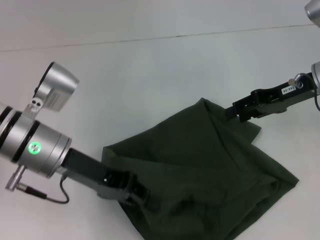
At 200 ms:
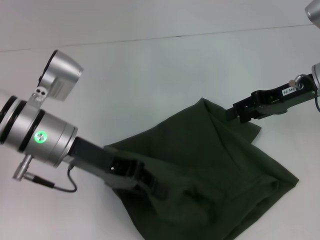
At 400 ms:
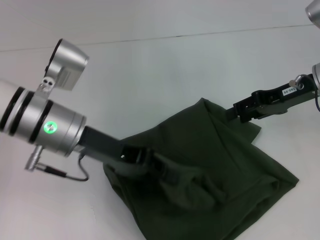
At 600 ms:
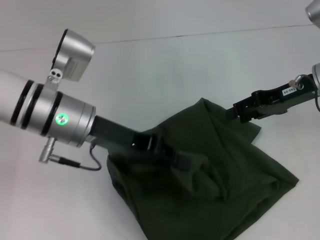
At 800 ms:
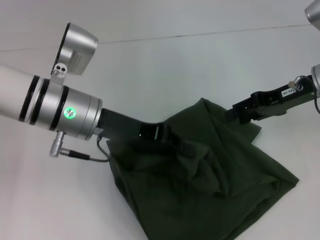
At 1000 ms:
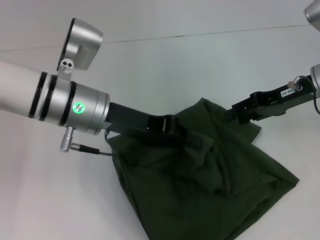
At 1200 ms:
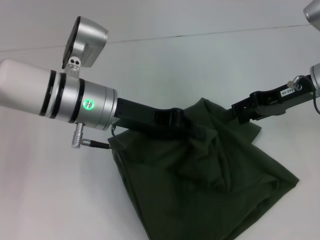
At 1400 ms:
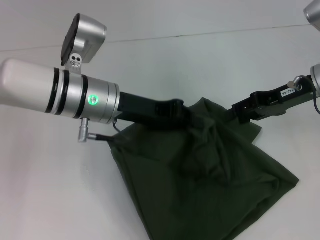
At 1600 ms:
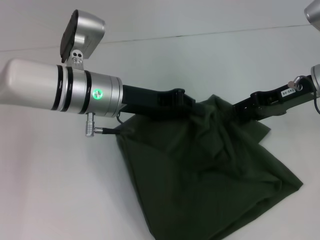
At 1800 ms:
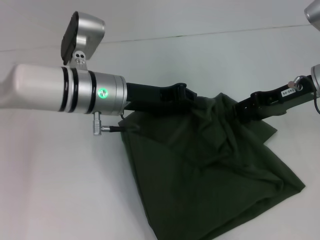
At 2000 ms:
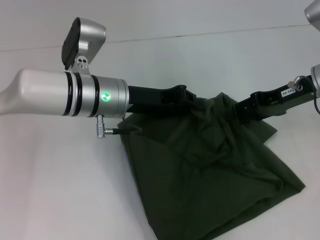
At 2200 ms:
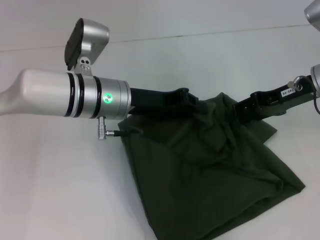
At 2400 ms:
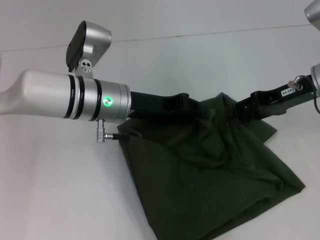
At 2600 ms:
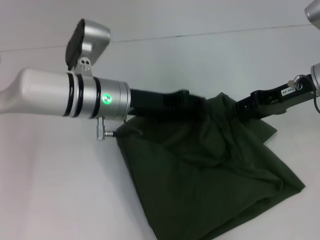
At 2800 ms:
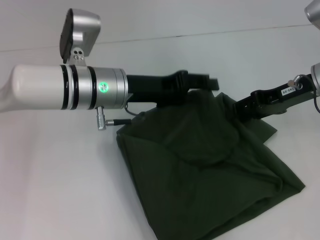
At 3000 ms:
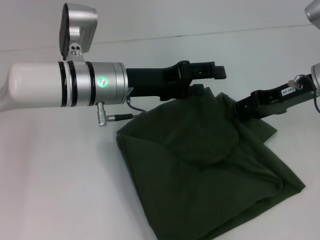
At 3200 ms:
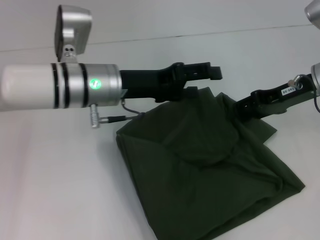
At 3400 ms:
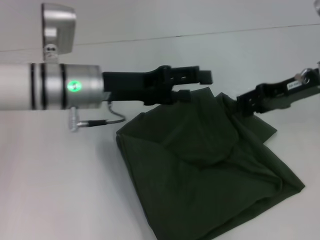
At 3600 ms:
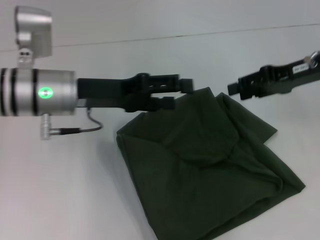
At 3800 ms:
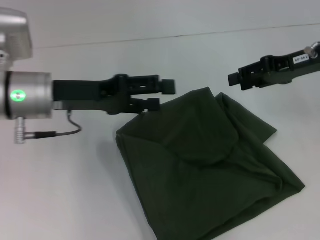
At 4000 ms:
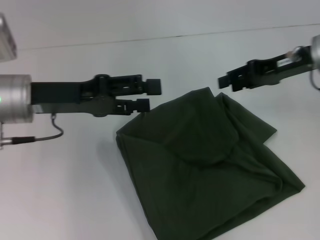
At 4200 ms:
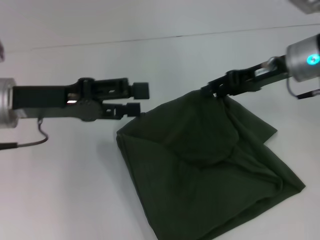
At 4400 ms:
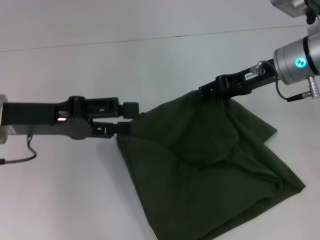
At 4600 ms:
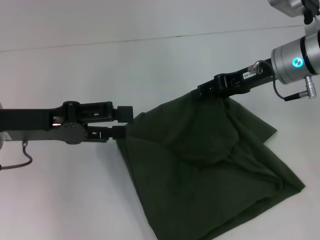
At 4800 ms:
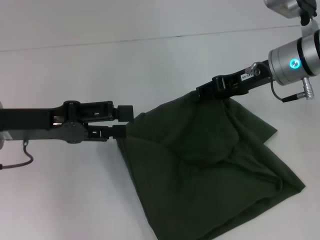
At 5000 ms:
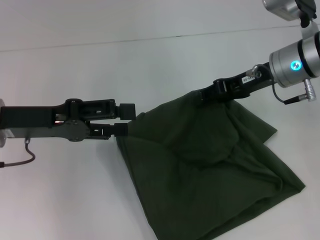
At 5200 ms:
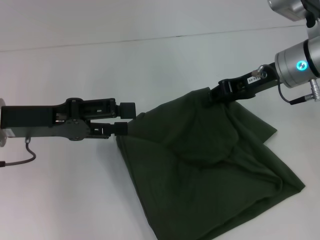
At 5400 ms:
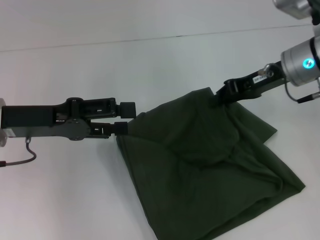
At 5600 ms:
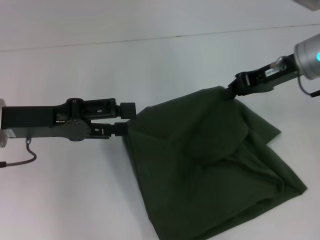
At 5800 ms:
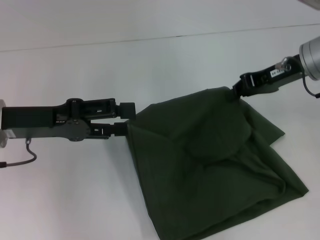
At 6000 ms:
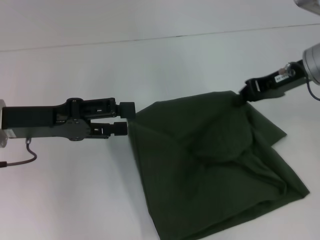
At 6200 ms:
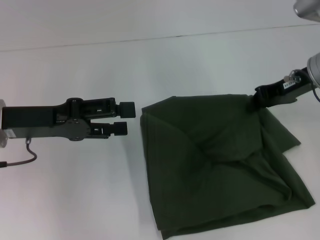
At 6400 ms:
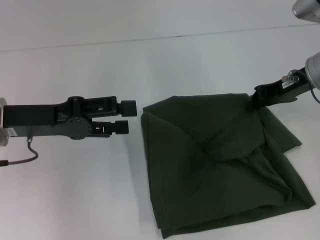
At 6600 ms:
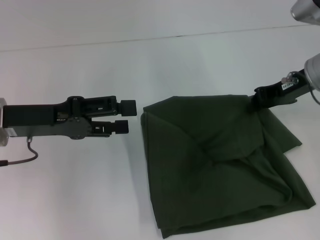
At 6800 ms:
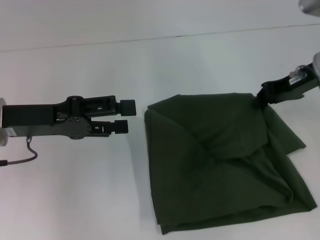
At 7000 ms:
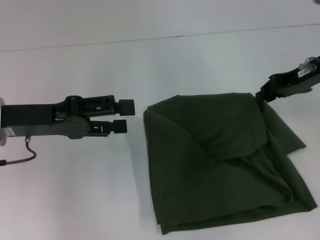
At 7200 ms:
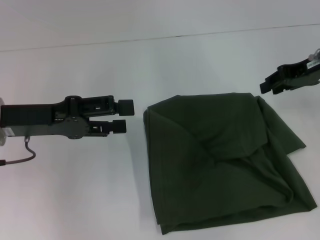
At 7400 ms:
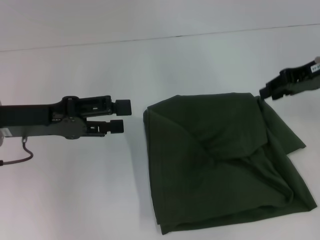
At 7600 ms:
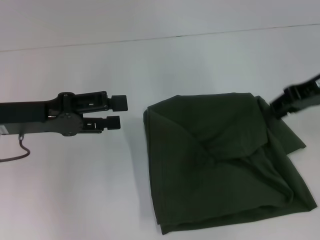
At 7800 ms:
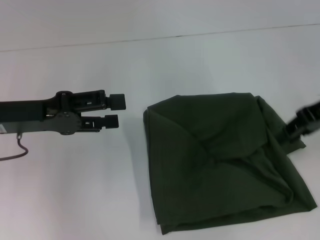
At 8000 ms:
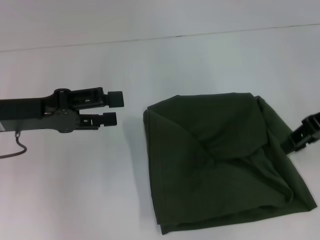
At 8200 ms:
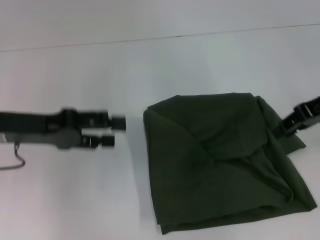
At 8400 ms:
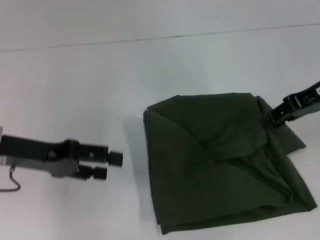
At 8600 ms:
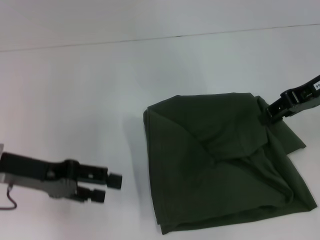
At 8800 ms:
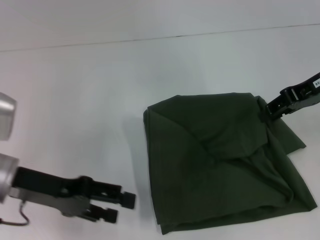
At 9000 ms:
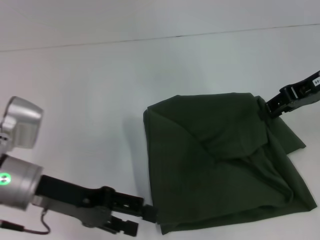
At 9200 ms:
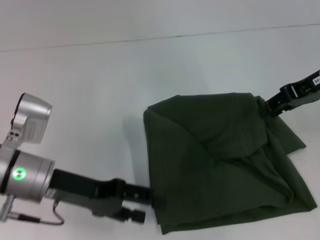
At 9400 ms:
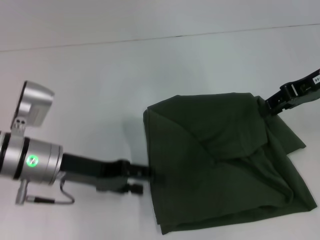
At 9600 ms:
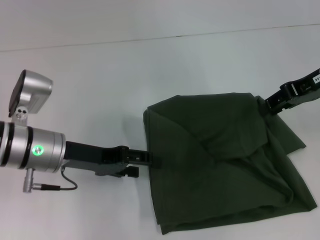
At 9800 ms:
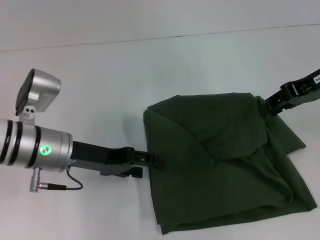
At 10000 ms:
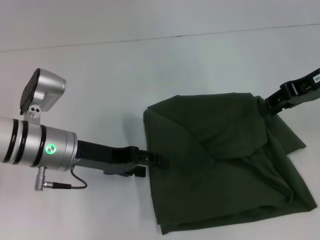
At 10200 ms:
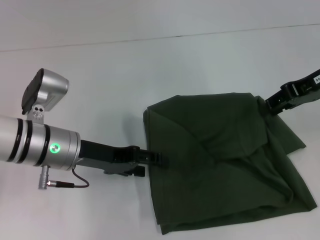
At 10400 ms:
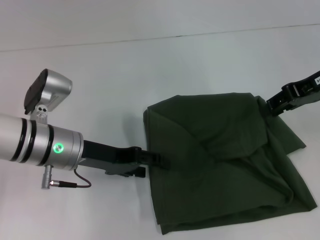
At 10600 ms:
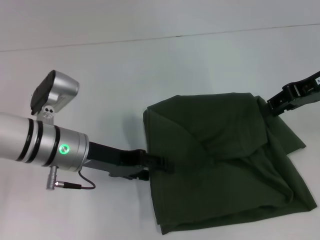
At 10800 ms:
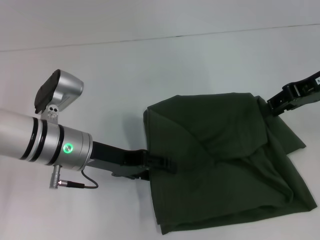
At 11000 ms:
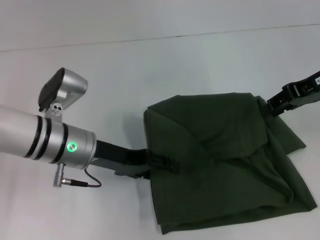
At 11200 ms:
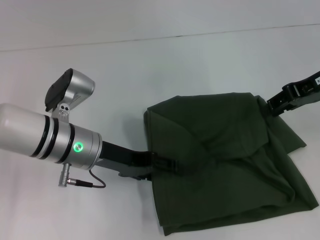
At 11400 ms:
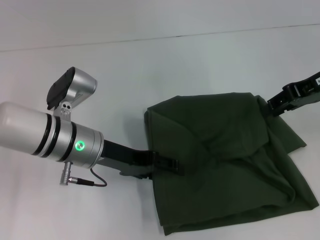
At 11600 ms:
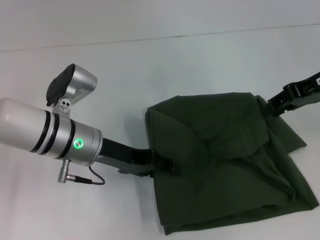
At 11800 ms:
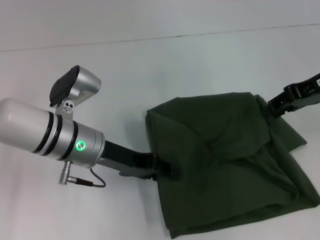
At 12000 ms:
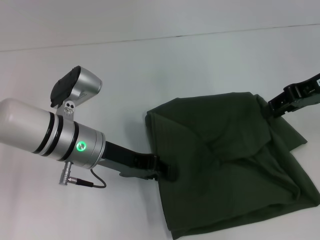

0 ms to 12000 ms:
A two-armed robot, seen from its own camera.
Step, 0 ms to 2800 ms: Fold the clothes with your left hand.
0 ms to 1600 ms: The left gripper travels to the right and forward by approximately 10 cm.
1600 ms to 3000 ms: The left gripper opens its fingers.
3000 ms to 4400 ms: The right gripper moves to the left, roughly 5 cm, while the left gripper is displaced to the left by roughly 15 cm.
4400 ms to 6000 ms: The right gripper closes up.
6000 ms to 7600 ms: The right gripper ends up approximately 5 cm from where it was, and opens.
7600 ms to 9000 ms: The left gripper changes place by roughly 5 cm.
9000 ms to 10400 ms: The left gripper changes place by some 5 cm.
10400 ms to 12000 ms: The left gripper closes.

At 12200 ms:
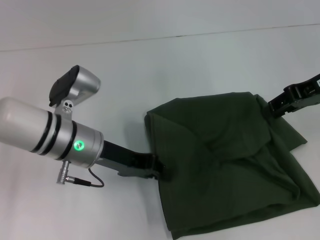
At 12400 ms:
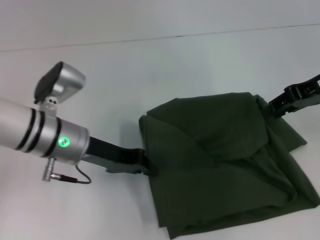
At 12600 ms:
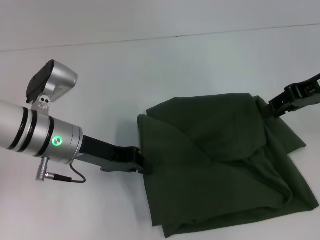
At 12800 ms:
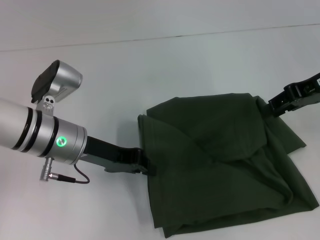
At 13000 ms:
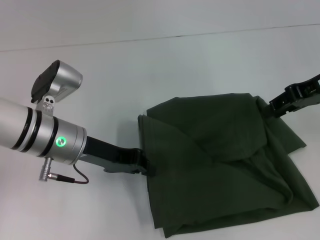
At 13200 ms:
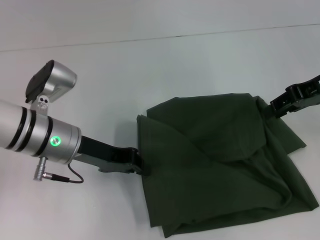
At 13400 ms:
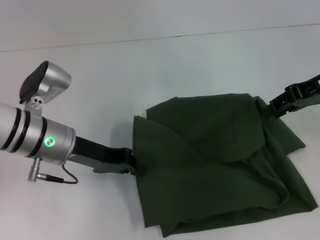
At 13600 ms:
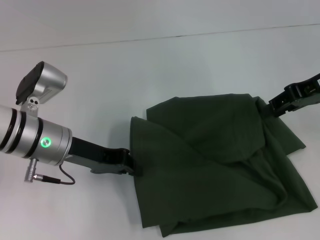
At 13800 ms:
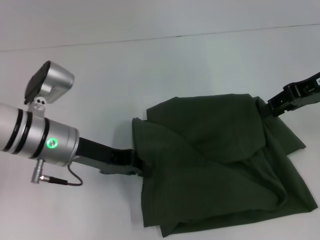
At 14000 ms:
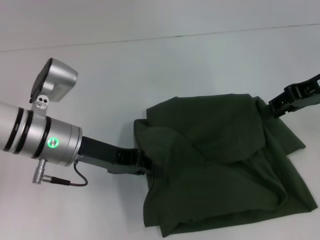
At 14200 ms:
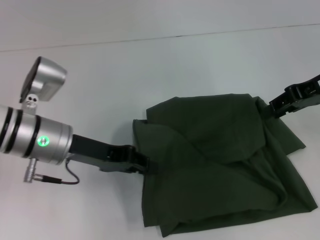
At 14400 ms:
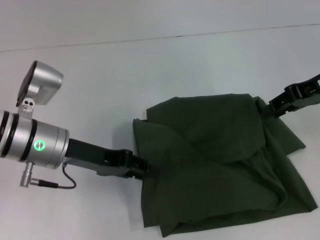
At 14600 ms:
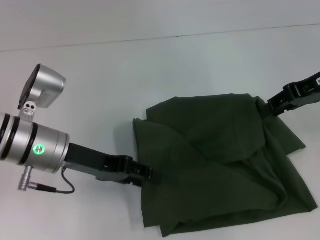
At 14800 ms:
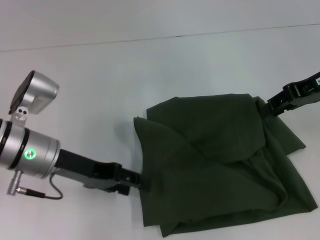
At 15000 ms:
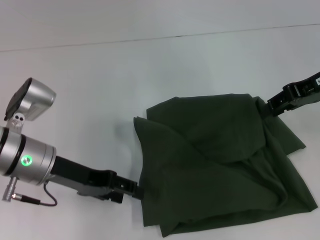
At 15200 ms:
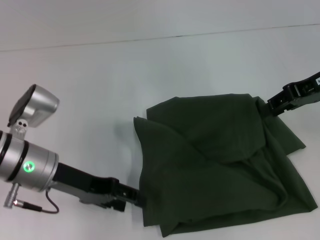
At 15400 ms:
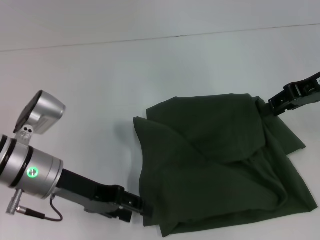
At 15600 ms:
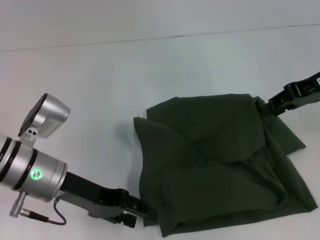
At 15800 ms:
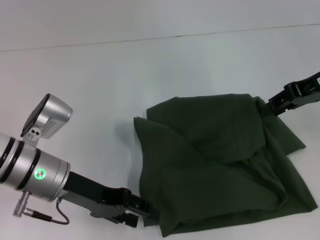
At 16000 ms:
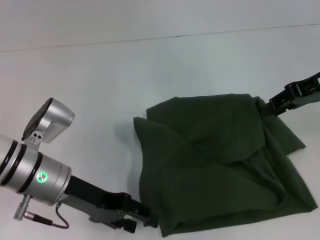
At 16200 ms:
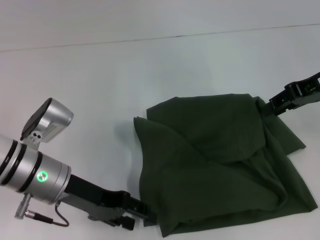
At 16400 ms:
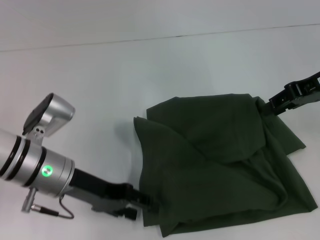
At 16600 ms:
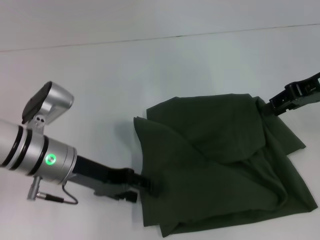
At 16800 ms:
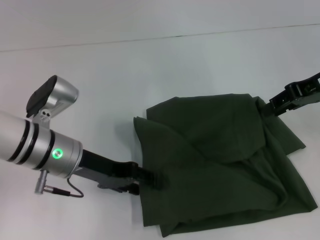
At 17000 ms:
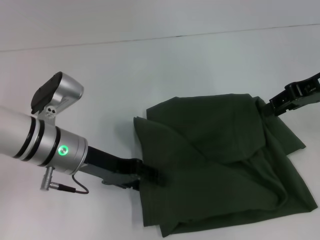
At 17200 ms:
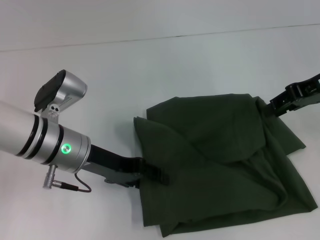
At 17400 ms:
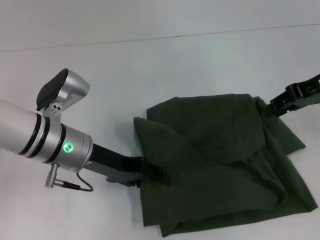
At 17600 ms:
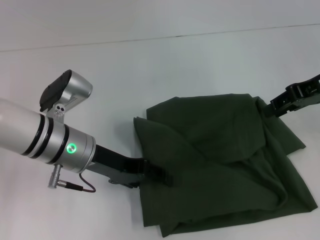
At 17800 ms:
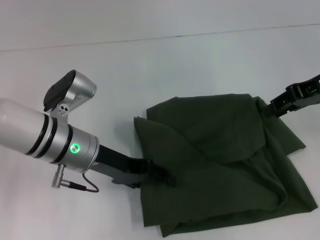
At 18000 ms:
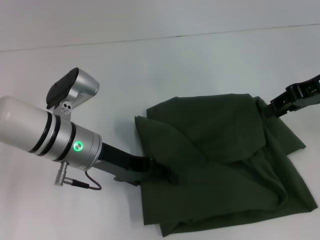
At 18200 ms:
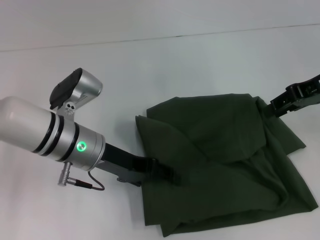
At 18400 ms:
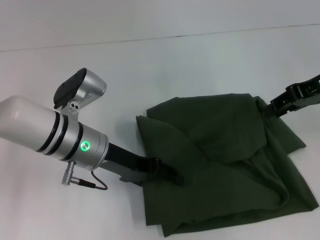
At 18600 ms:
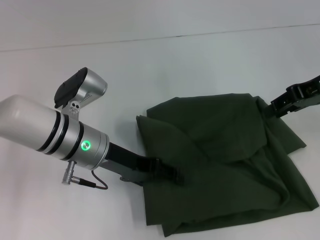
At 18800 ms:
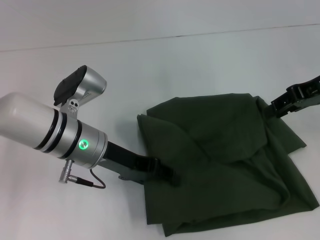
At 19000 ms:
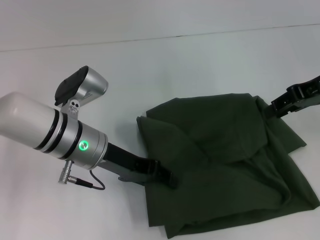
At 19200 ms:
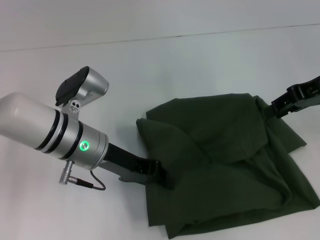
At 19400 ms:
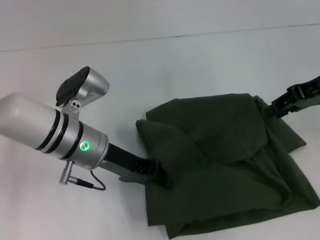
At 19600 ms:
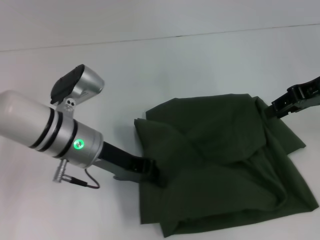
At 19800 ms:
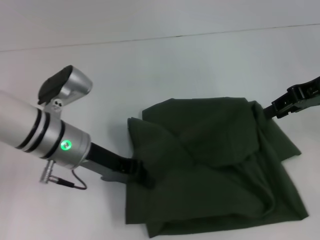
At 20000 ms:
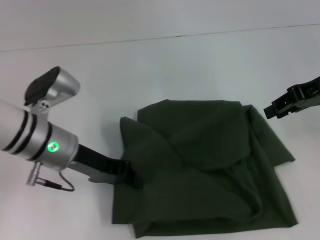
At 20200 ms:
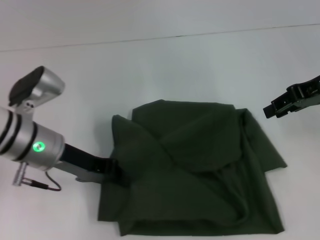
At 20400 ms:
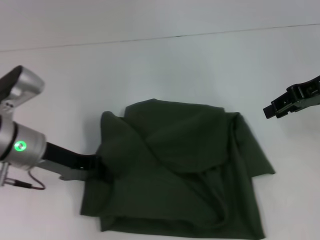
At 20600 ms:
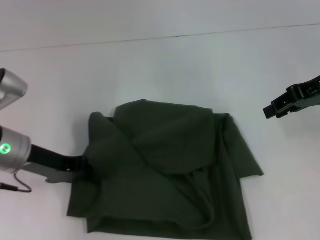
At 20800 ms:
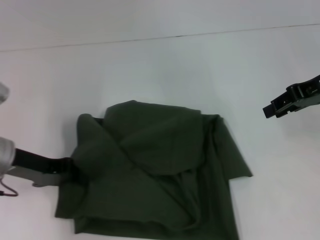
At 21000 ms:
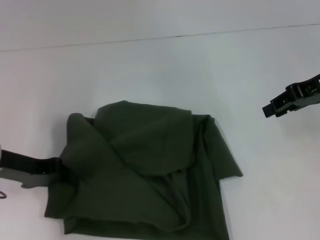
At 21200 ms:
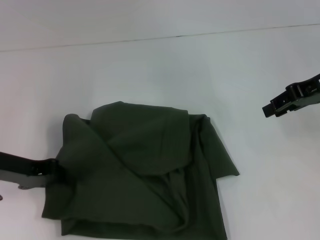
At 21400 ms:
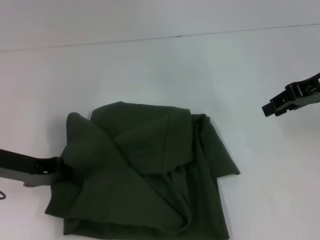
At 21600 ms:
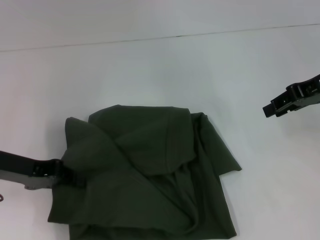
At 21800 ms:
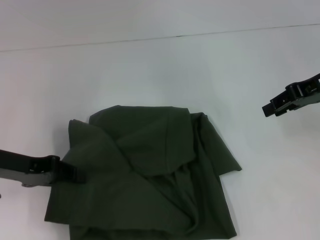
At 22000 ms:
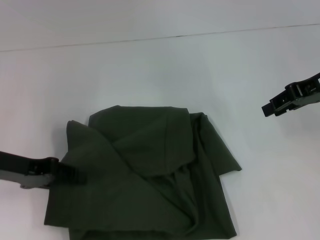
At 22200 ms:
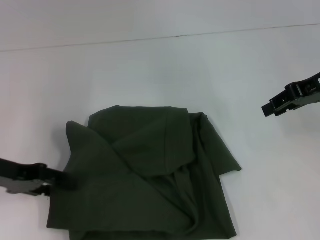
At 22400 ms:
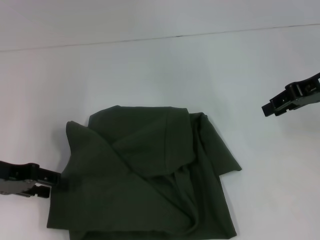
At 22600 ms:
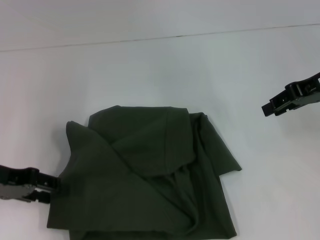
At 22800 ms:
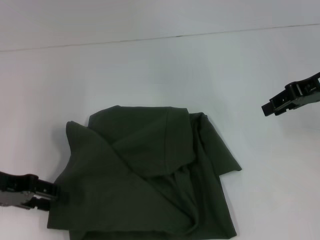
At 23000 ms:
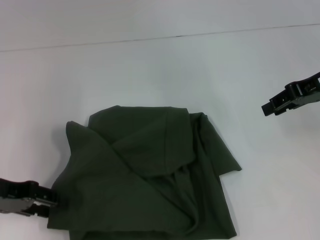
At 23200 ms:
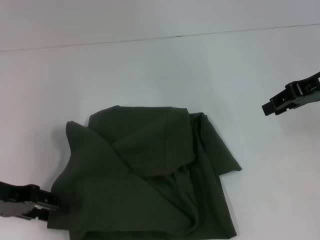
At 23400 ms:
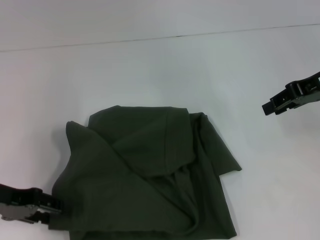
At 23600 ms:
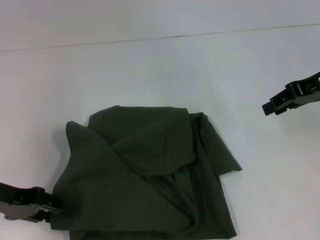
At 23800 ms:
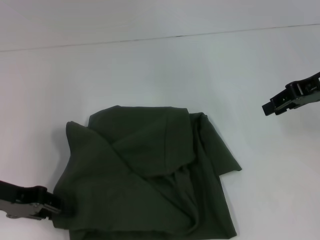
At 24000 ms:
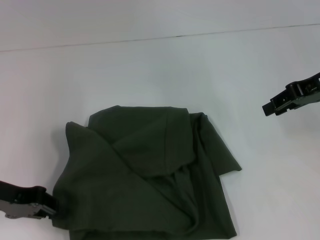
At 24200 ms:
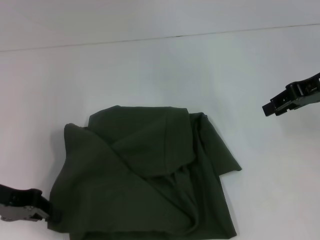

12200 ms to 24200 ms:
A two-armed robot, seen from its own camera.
12200 ms to 13800 ms: The grippers make only small movements.
13800 ms to 15200 ms: The left gripper opens.
15200 ms to 16600 ms: The grippers stay close to where they were, moving slightly.
16600 ms to 18200 ms: The grippers make only small movements.
18200 ms to 19800 ms: The left gripper closes its fingers.
19800 ms to 21200 ms: The left gripper goes roughly 10 cm to the left.
21200 ms to 22600 ms: The left gripper opens.
22600 ms to 24200 ms: The left gripper closes up.
